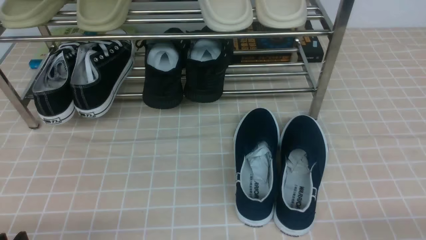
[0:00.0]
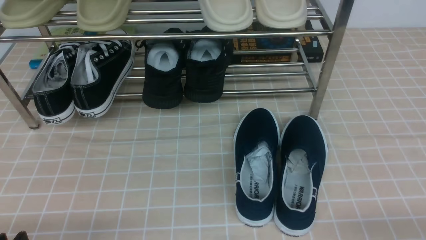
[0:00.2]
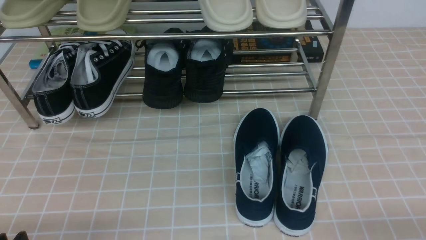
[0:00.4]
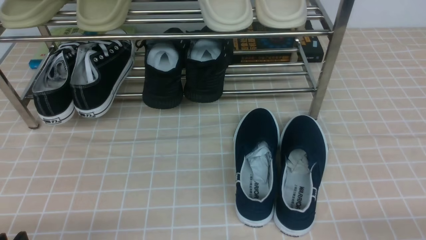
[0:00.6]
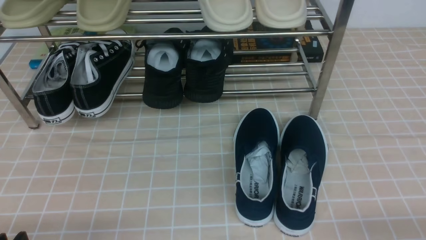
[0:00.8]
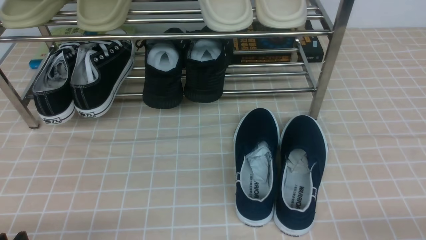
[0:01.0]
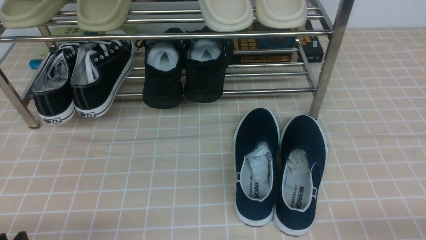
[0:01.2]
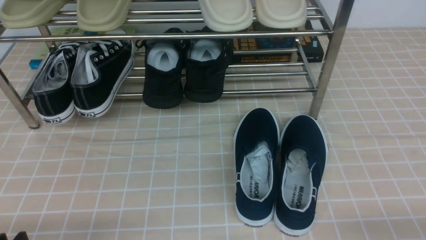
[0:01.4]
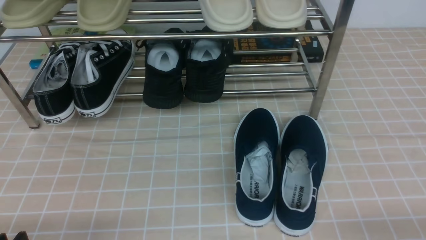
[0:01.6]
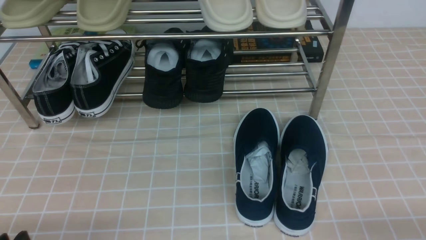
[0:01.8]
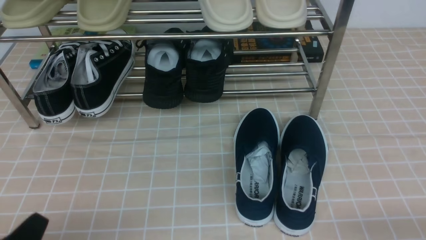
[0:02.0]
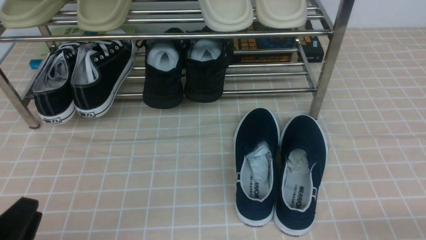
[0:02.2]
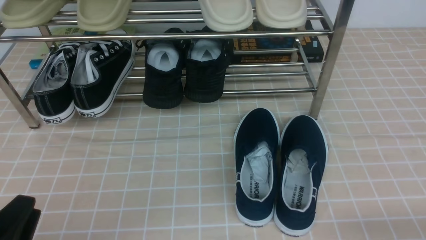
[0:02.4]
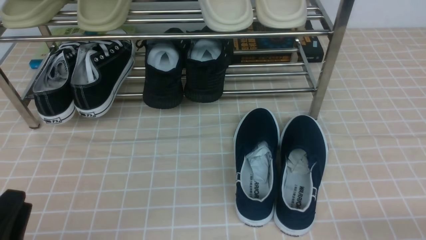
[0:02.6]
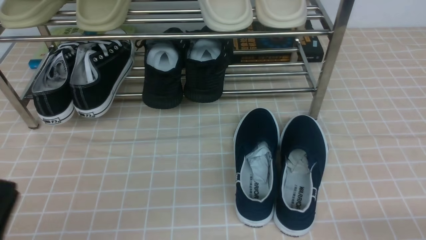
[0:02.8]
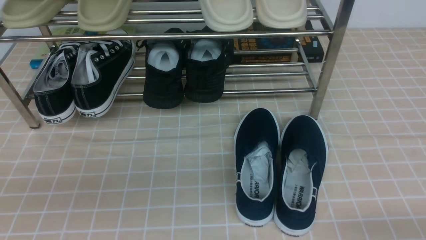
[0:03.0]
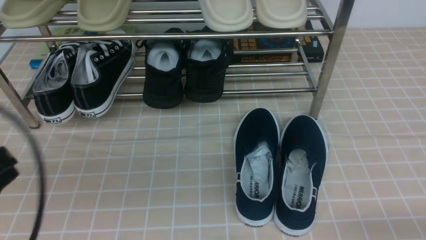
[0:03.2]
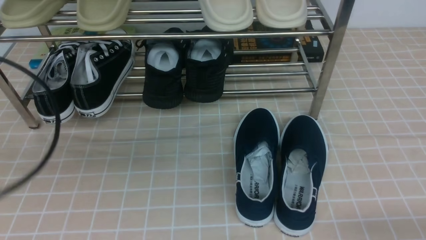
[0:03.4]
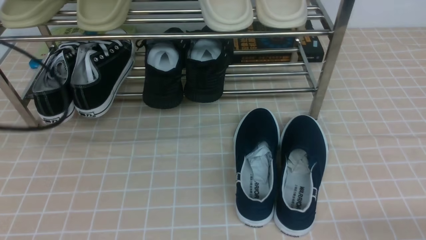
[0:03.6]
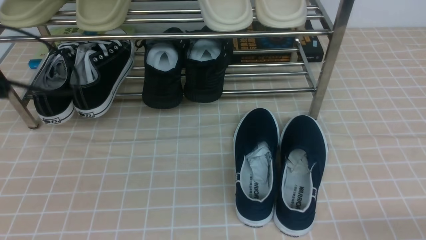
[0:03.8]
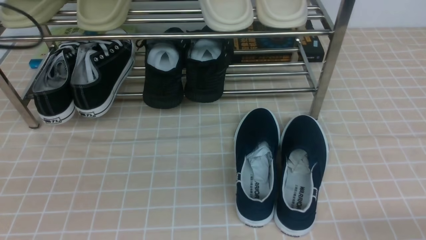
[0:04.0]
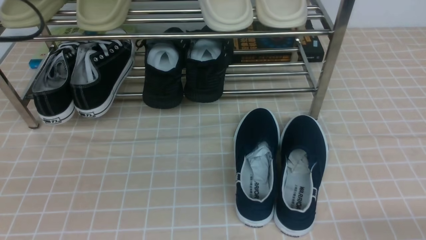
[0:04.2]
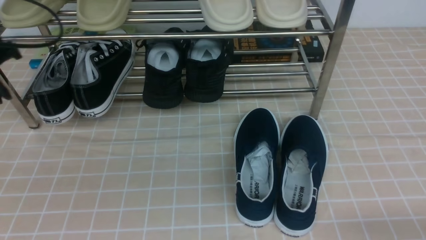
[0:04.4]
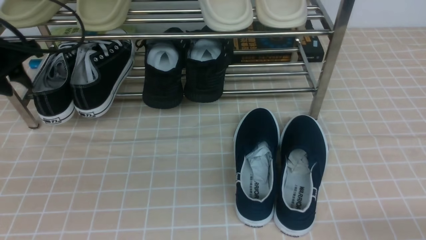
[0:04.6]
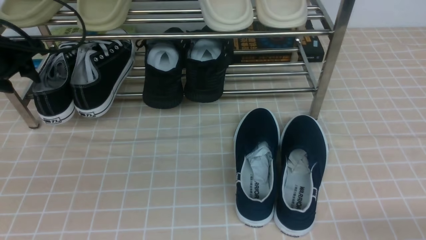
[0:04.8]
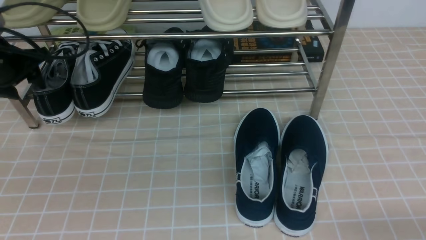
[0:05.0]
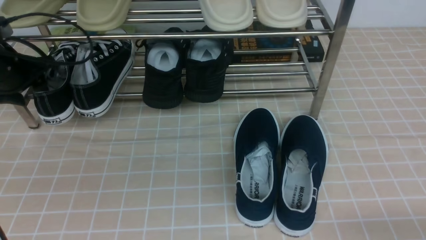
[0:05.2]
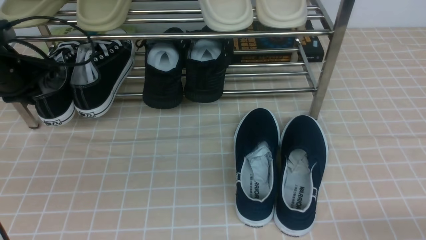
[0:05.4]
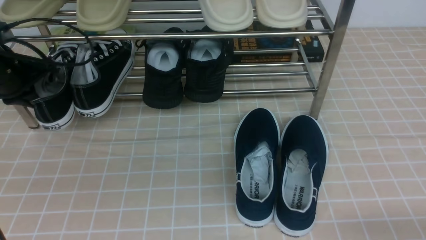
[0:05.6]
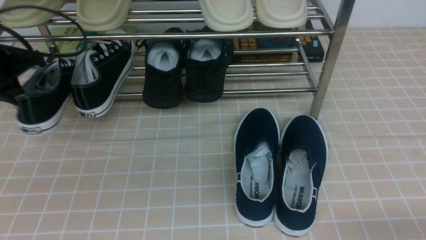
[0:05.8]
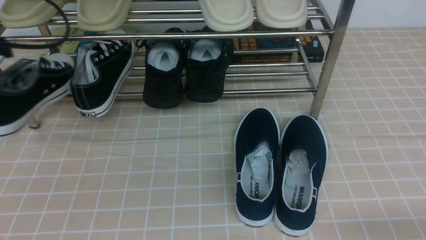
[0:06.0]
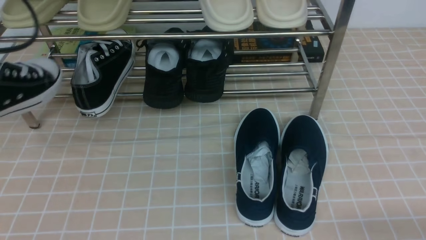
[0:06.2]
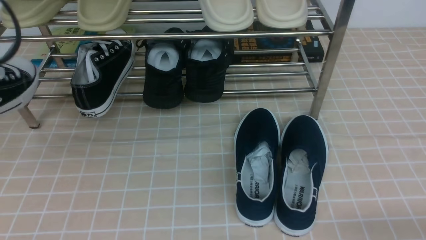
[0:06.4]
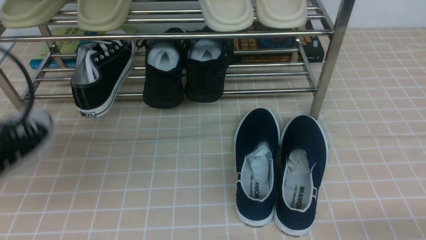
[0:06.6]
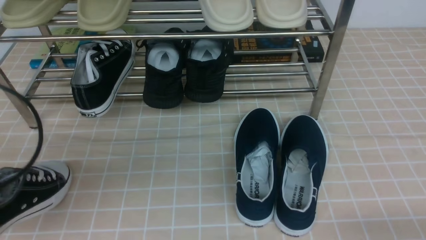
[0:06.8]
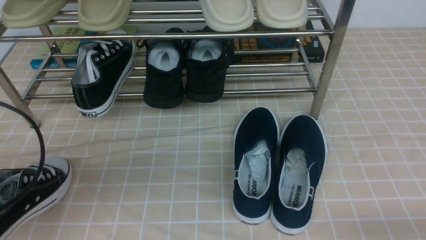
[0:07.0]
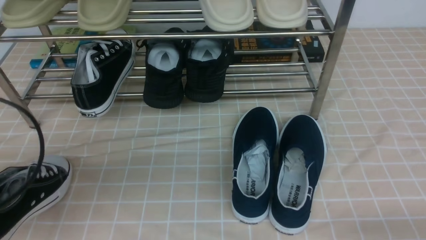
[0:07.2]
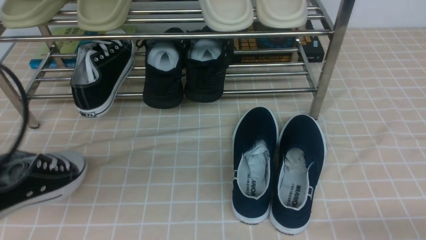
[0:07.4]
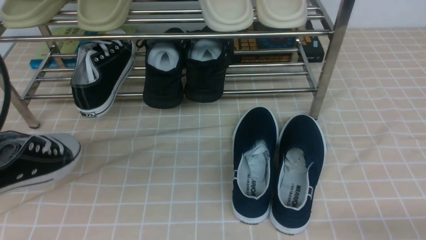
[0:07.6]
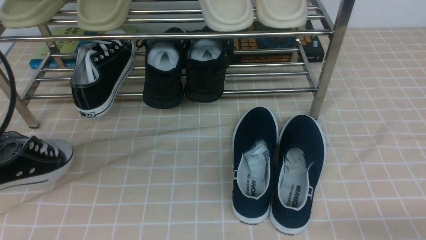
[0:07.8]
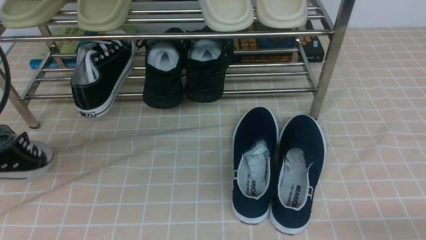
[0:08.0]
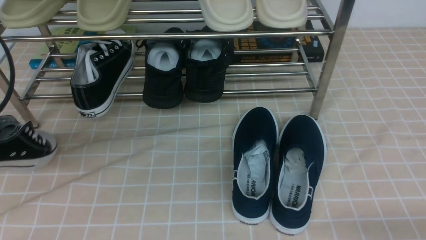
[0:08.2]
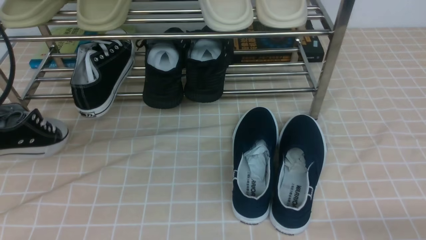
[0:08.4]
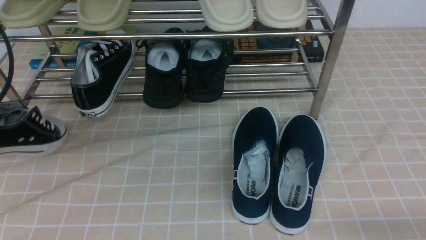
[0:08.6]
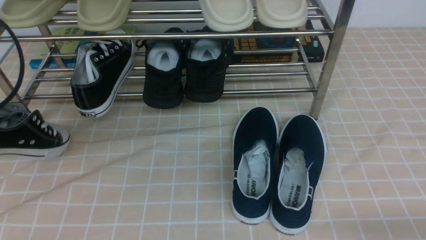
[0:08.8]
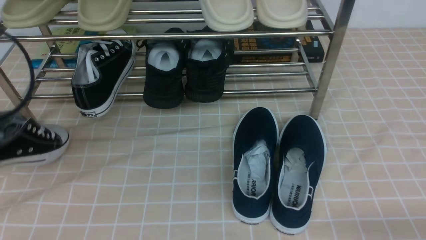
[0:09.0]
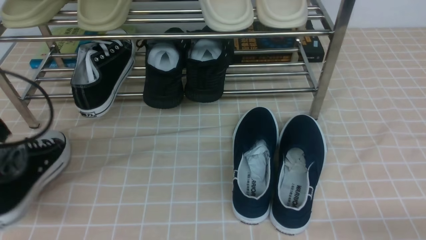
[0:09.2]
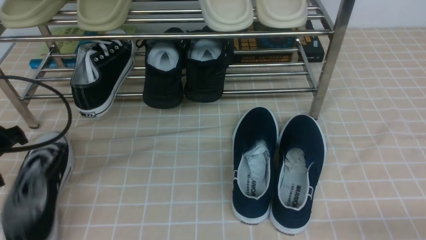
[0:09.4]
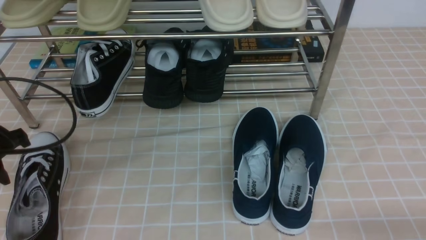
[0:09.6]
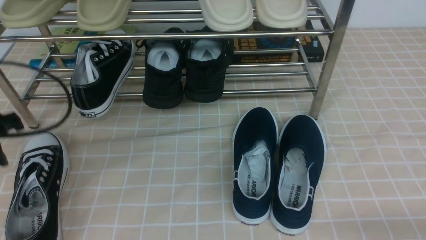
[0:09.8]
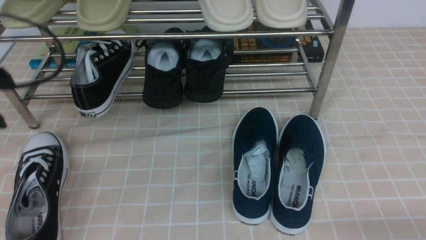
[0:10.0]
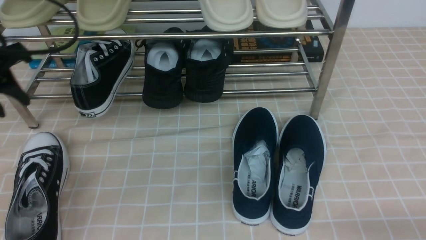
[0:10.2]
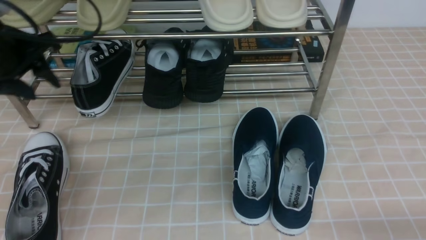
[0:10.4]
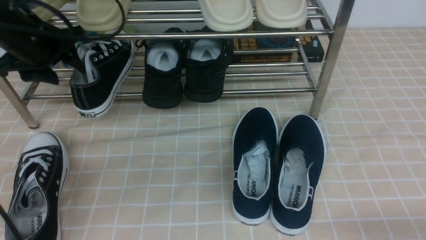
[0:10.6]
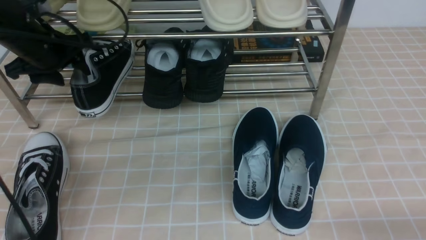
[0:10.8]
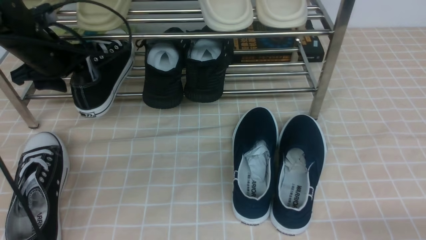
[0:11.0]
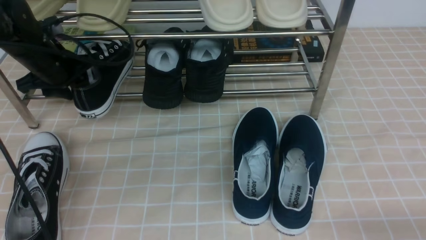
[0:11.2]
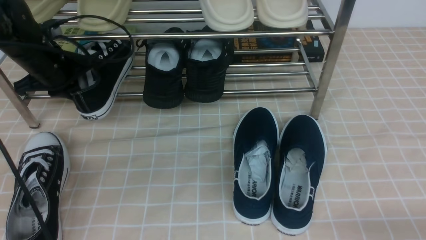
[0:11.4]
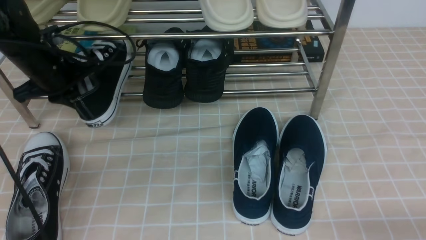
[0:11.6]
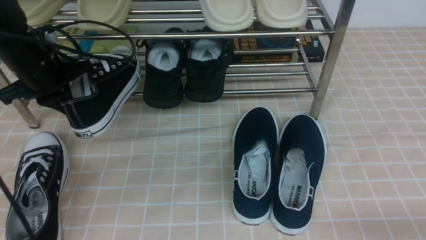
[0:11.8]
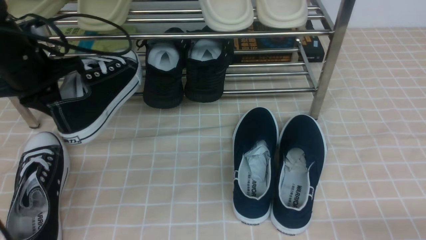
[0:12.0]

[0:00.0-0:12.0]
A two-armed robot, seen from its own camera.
Step, 0:00.0 to 0:05.4: use the left arm to clamp a shoe on the left side of the shoe rack.
Step, 0:05.6 to 0:09.4: Use your left arm to remove the clamped shoe from the shoe rack and put it down.
Step, 0:09.8 to 0:11.2: use the left arm to clamp a shoe on the left side of the shoe rack.
0:00.0 to 0:01.6: Both grippers stay about where they are.
0:01.6 to 0:03.0: The left gripper shifts approximately 10 cm upward, and closes.
0:03.0 to 0:04.4: The left gripper heads forward, covering approximately 25 cm.
0:04.4 to 0:06.0: The left gripper travels backward by roughly 5 cm, and opens, then closes once more.
0:06.0 to 0:07.6: The left gripper shifts roughly 15 cm backward.
0:07.6 to 0:09.0: The left gripper goes roughly 10 cm forward and downward.
0:09.0 to 0:10.4: The left gripper goes some 10 cm forward, and opens its fingers.
0:10.4 to 0:12.0: The left gripper goes forward and returns, about 5 cm each way, and closes up.

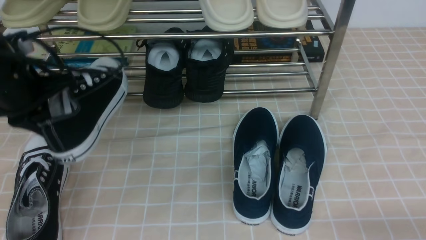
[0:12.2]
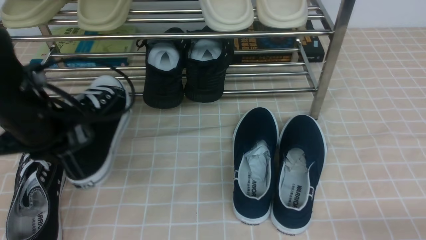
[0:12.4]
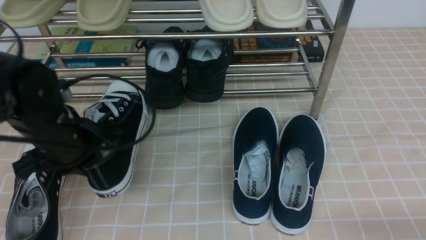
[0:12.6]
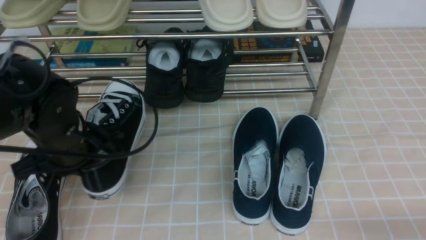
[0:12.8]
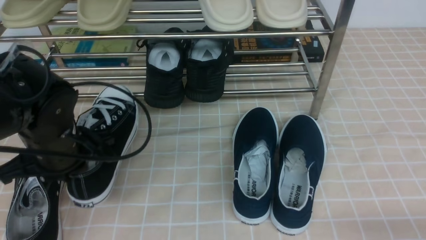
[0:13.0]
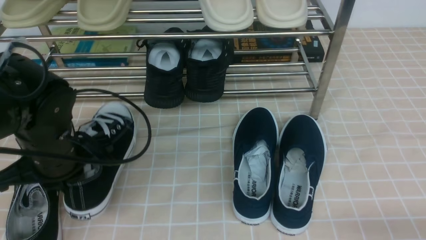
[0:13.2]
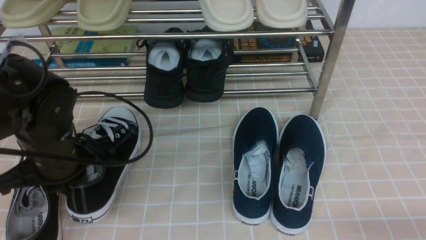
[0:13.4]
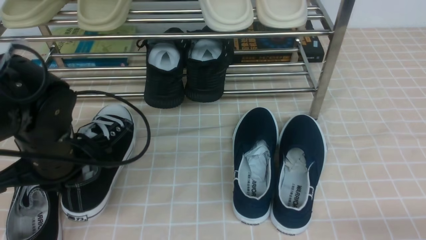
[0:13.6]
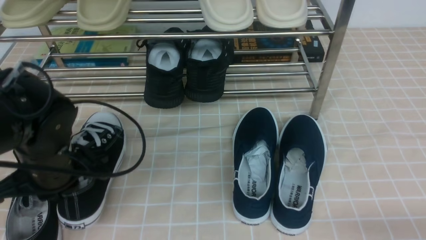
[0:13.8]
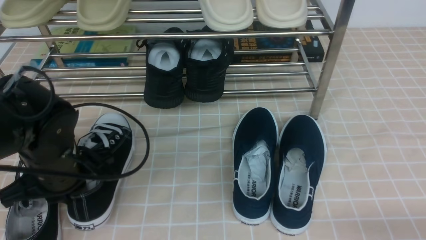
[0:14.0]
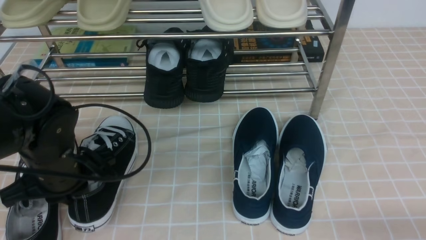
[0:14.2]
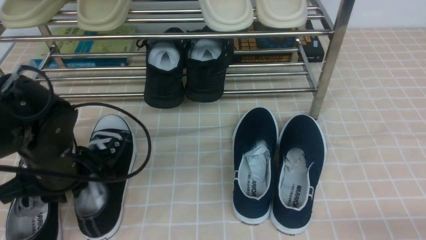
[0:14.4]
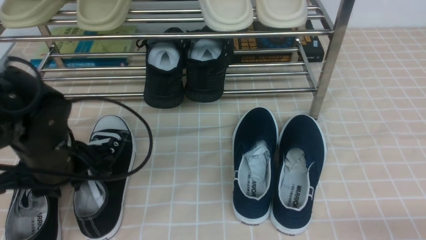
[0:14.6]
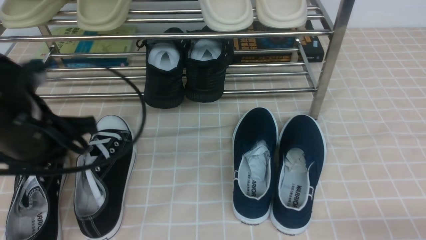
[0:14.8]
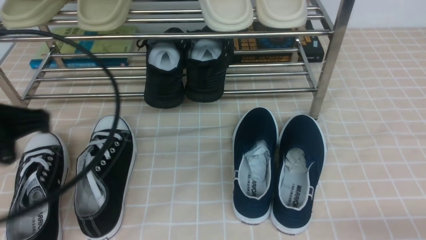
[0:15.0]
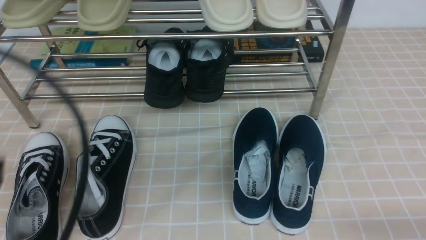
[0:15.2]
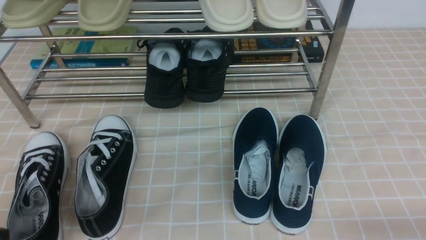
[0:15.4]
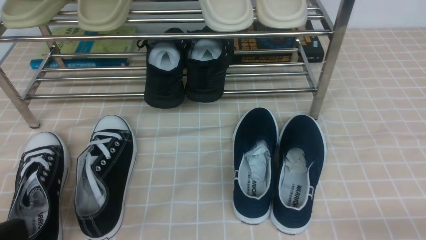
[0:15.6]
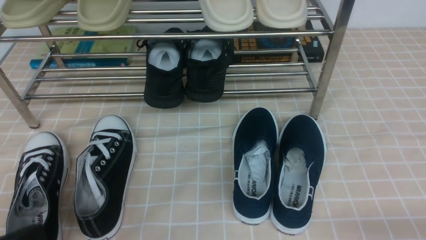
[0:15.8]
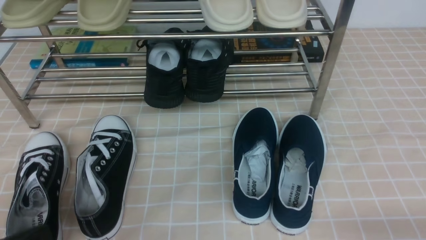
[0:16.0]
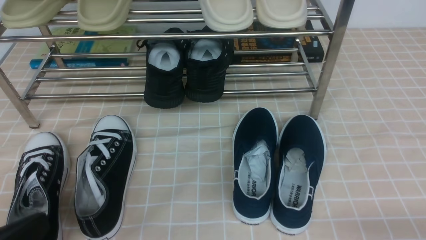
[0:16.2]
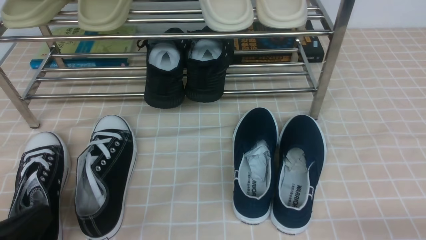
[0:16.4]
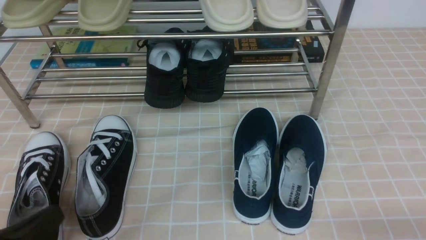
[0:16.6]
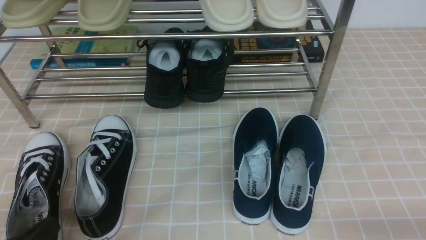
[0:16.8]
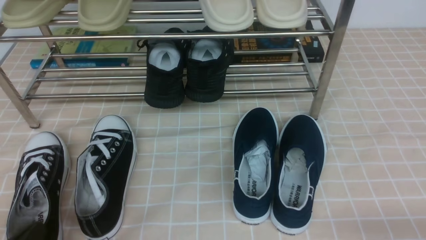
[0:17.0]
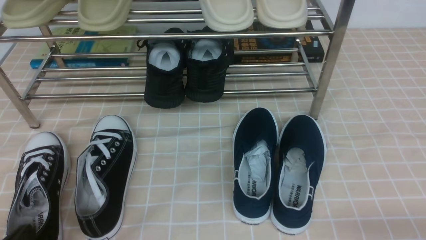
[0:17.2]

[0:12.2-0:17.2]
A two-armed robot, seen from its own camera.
Step, 0:12.2 to 0:14.8: Use your left arm to remove the clamped shoe from the shoe rack and put it down.
0:12.2 to 0:13.8: The left gripper moves downward and backward, some 10 cm.
0:13.8 to 0:15.6: The left gripper moves backward, roughly 20 cm, and opens, then closes once more.
0:15.6 to 0:17.2: The left gripper is displaced downward by some 15 cm.
